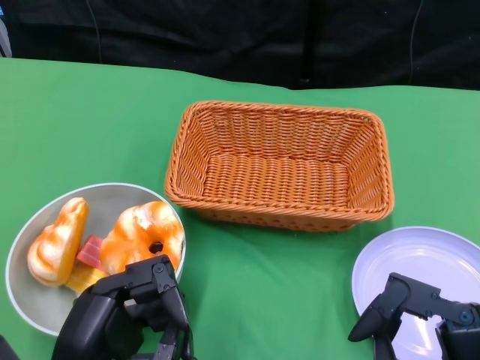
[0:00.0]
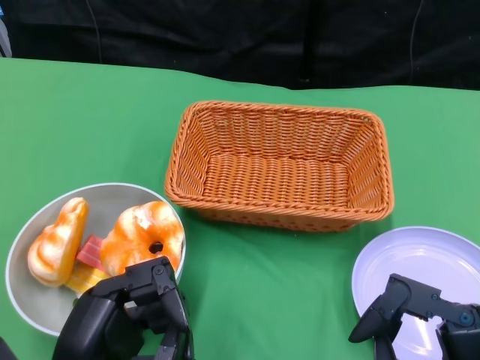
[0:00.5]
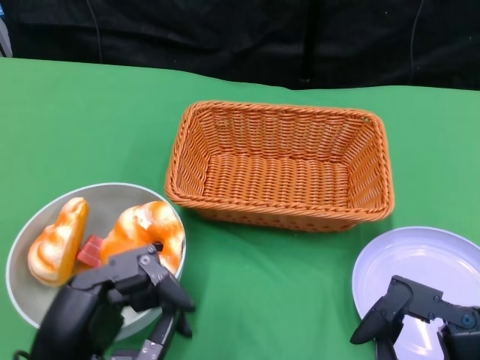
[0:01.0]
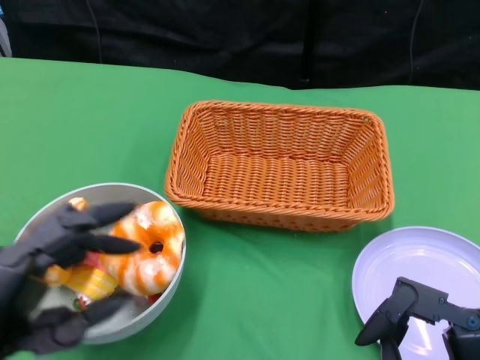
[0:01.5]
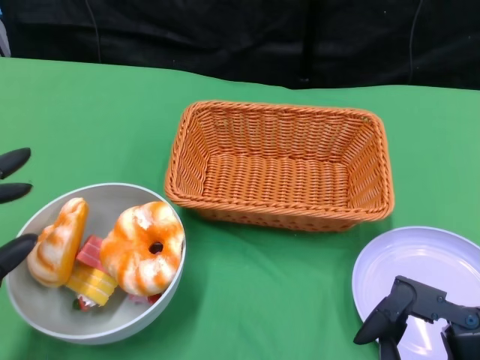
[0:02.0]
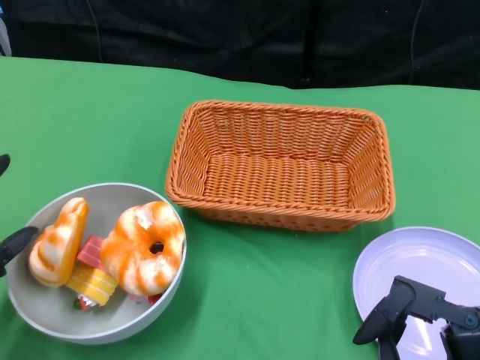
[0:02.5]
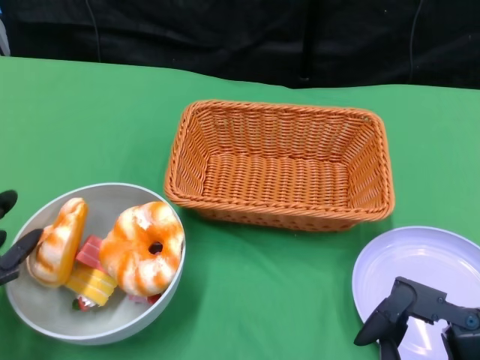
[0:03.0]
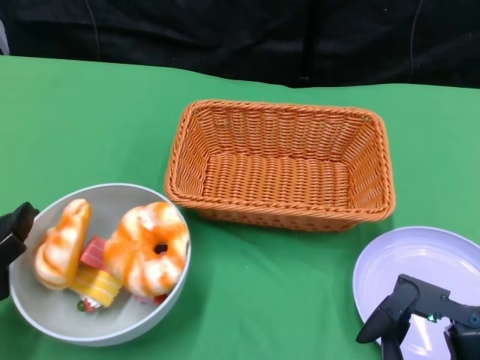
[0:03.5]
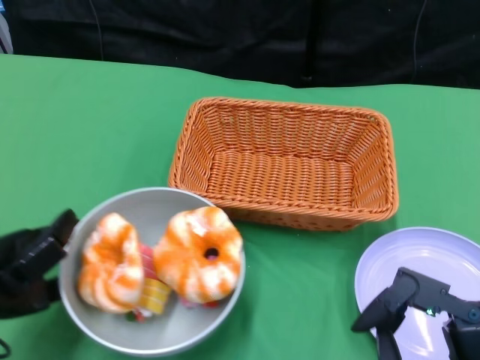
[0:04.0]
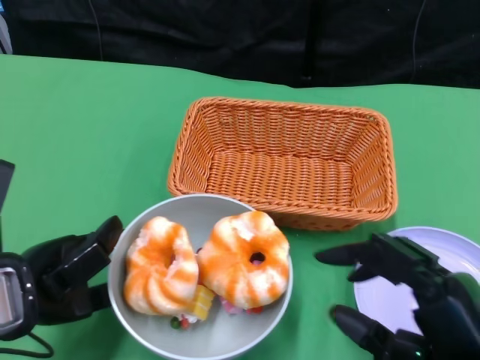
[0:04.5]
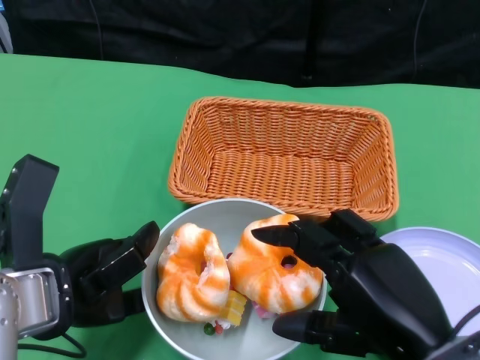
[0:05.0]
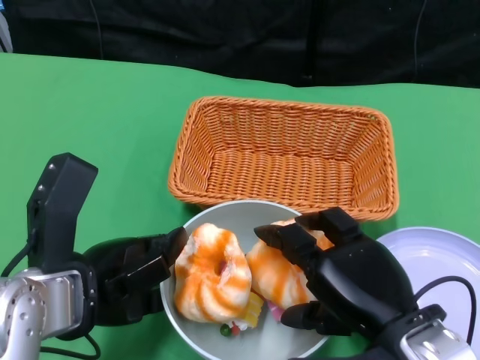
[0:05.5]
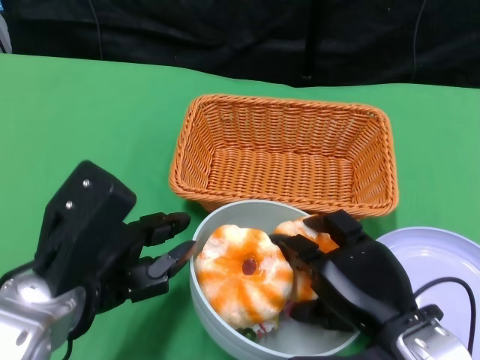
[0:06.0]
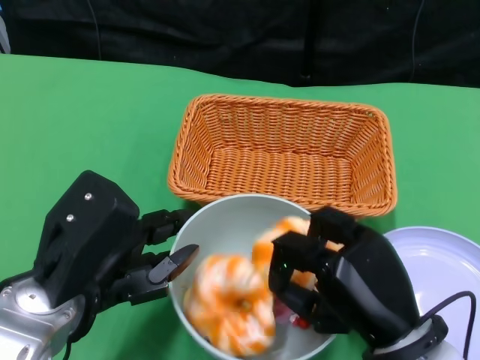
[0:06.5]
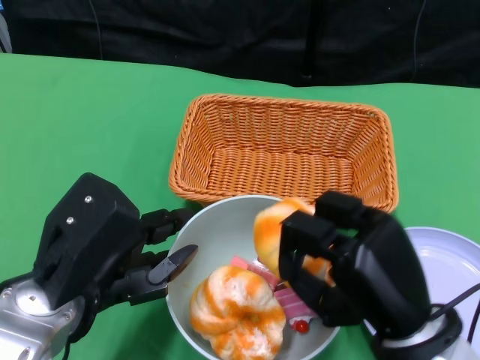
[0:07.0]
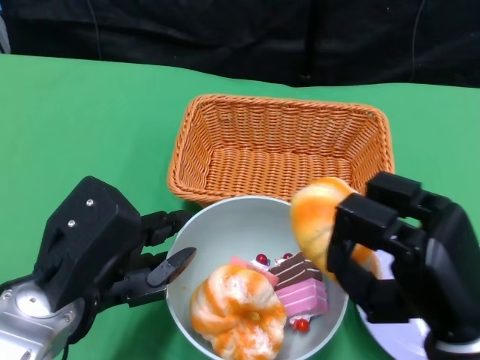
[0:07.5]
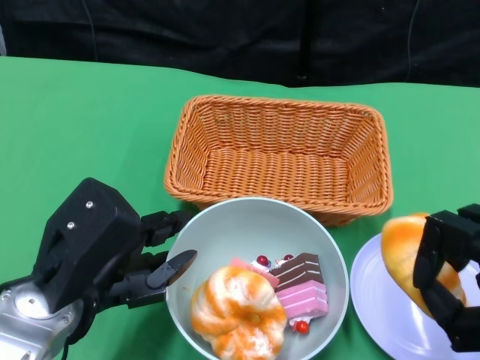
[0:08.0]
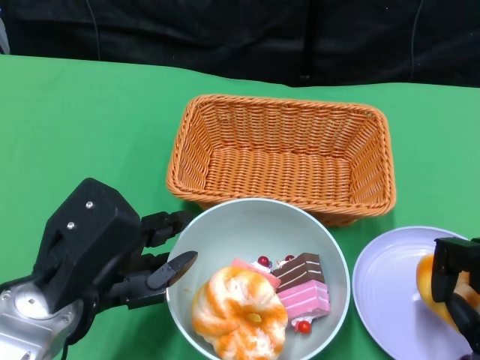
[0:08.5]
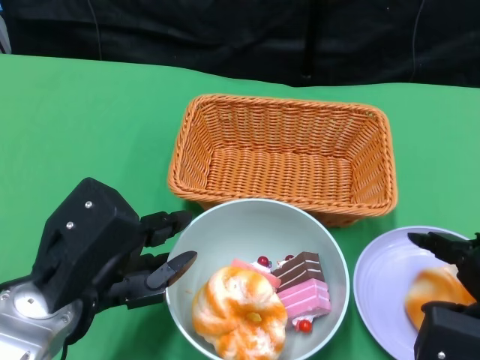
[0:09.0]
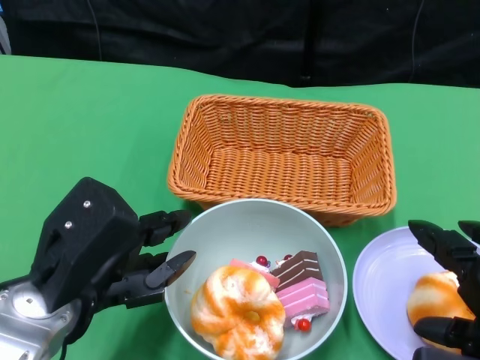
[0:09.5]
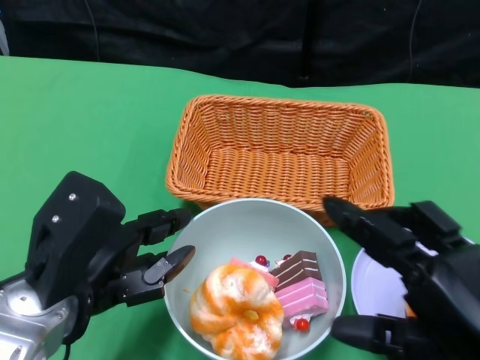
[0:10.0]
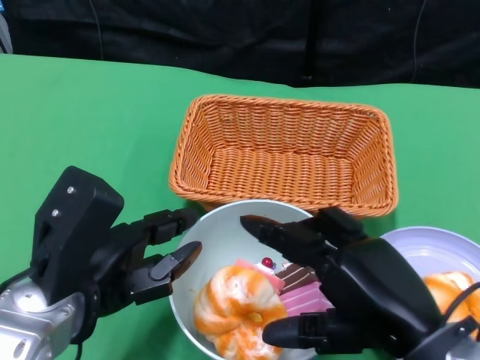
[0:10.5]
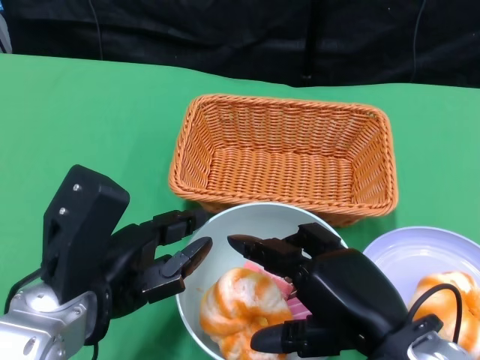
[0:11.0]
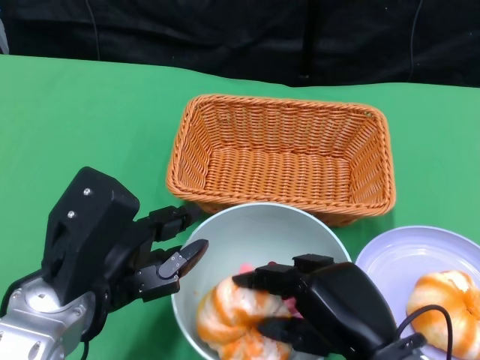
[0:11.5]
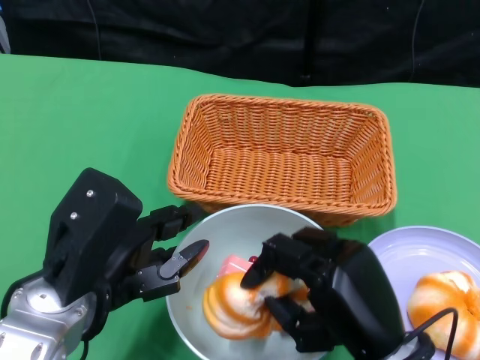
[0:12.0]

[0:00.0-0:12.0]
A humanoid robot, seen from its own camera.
Step, 0.0 to 4.5 s: Push the bowl to the center of the table using the left gripper.
2.0 to 4.0 s: The left hand shifts roughly 5 cm forward.
4.0 to 6.0 s: The right hand goes approximately 10 cm forward, while the left hand heads to the right, covering about 10 cm.
6.0 to 8.0 s: The right hand travels to the right and backward by some 10 cm.
8.0 to 10.0 s: The right hand changes place by about 5 cm.
10.0 to 12.0 s: The right hand shifts roughly 15 cm downward, to the left and forward.

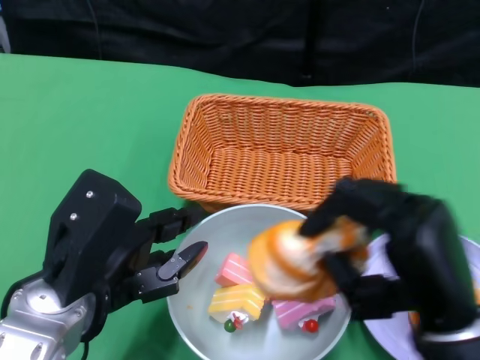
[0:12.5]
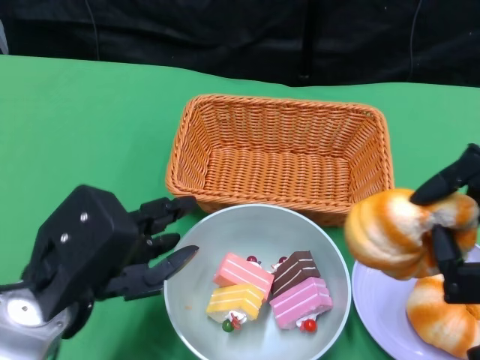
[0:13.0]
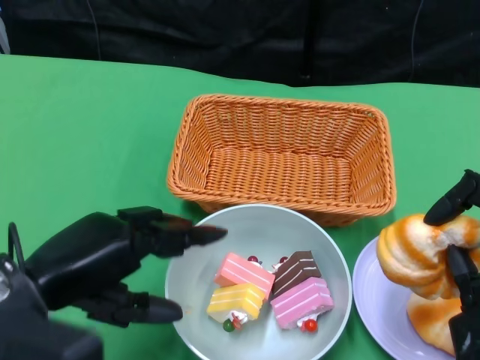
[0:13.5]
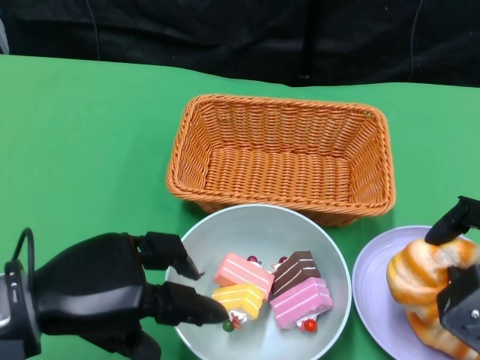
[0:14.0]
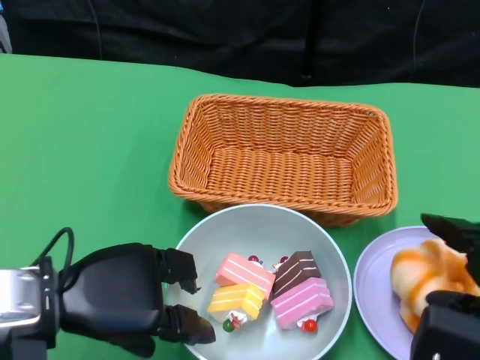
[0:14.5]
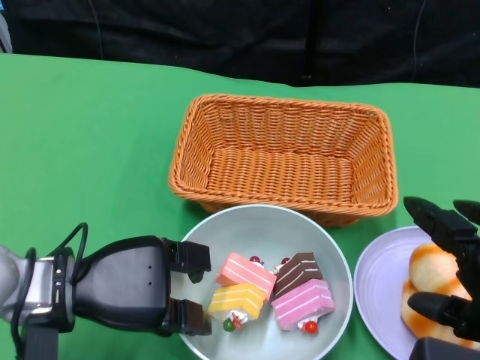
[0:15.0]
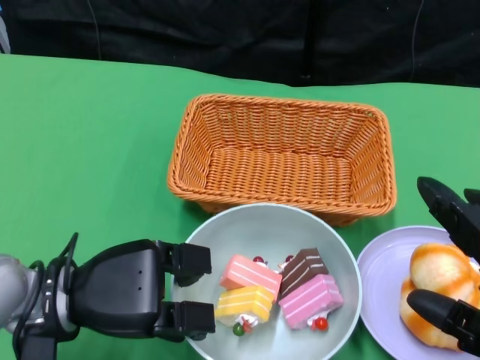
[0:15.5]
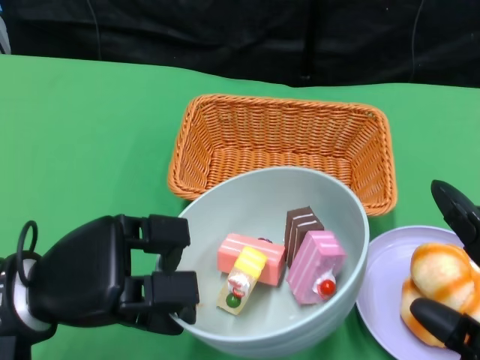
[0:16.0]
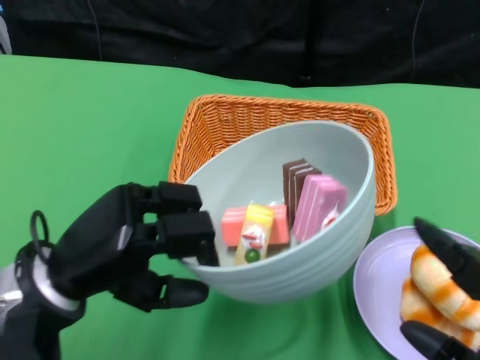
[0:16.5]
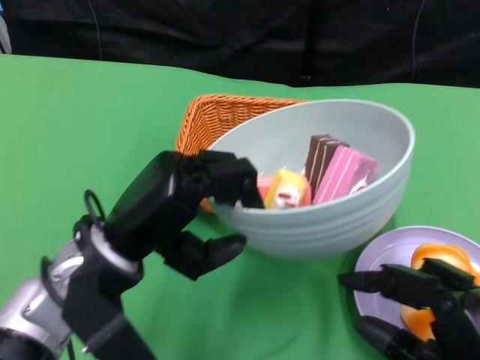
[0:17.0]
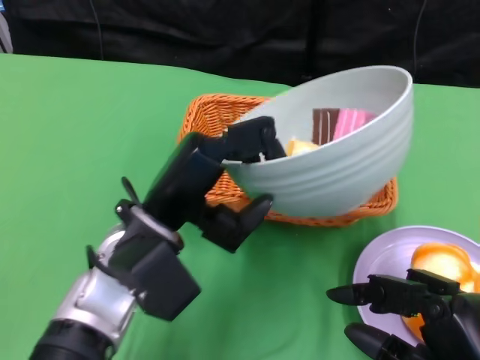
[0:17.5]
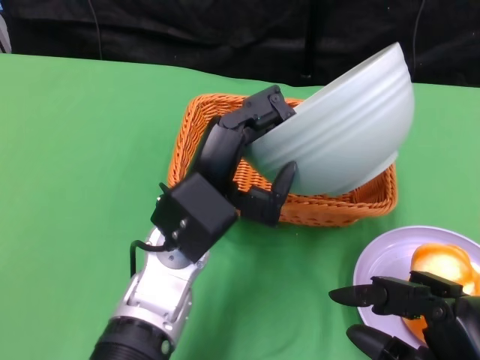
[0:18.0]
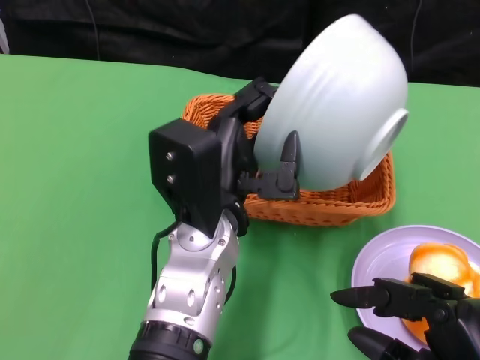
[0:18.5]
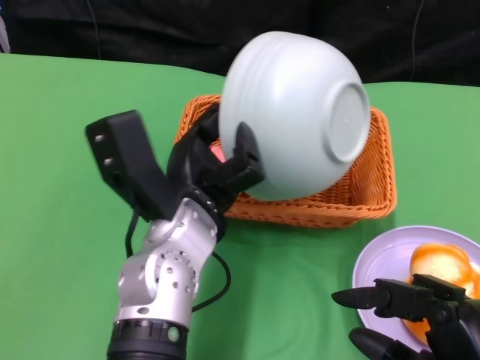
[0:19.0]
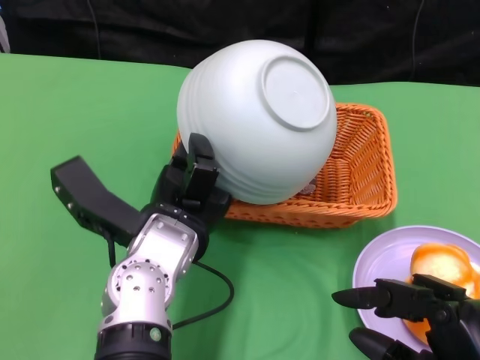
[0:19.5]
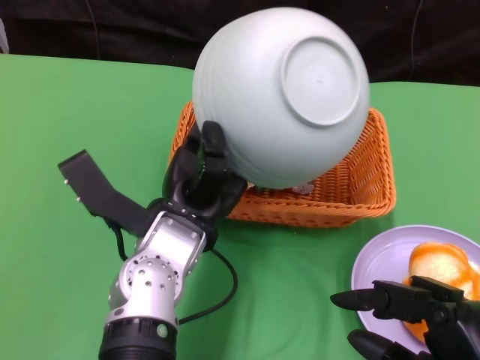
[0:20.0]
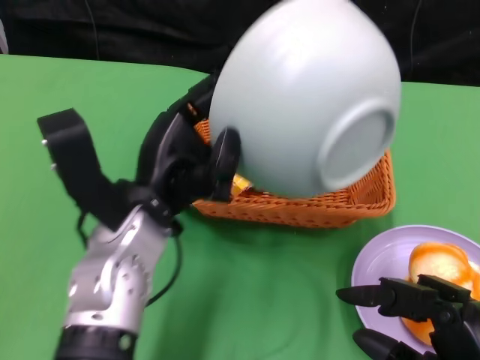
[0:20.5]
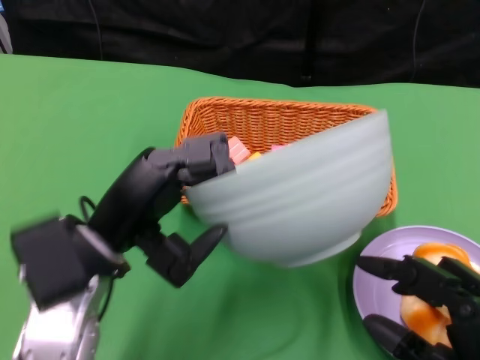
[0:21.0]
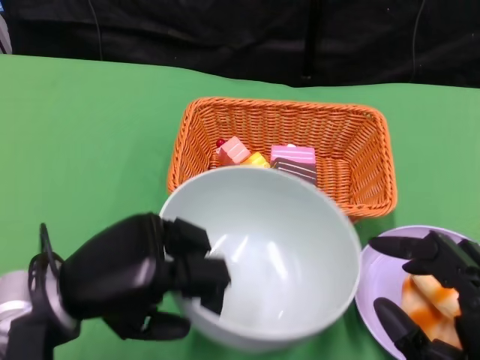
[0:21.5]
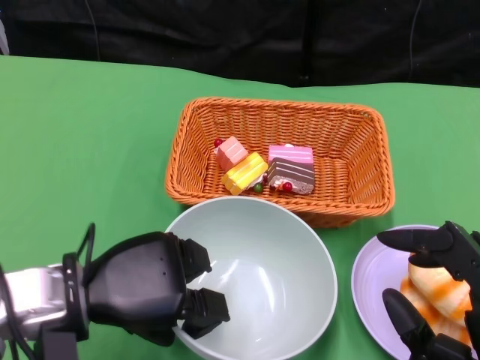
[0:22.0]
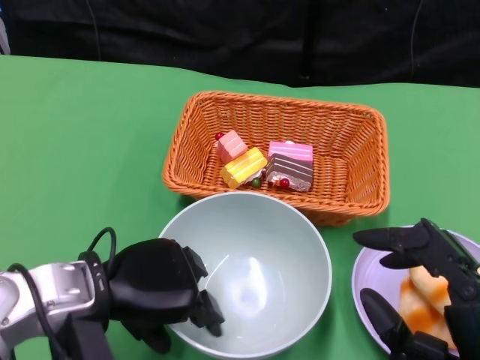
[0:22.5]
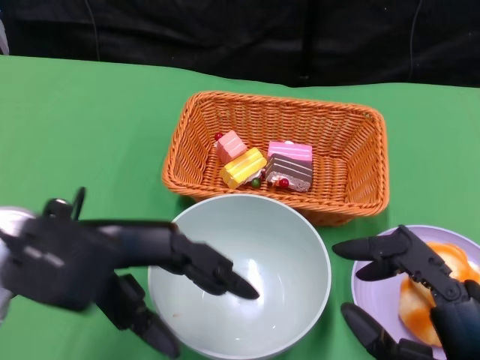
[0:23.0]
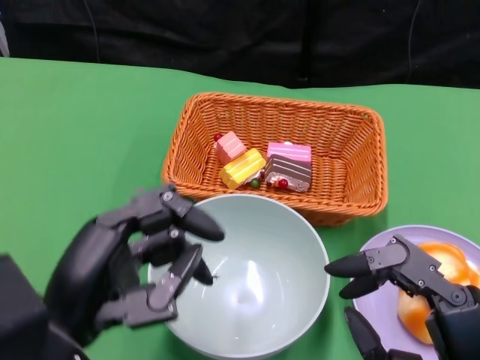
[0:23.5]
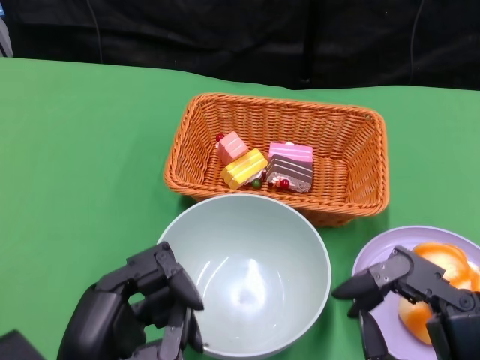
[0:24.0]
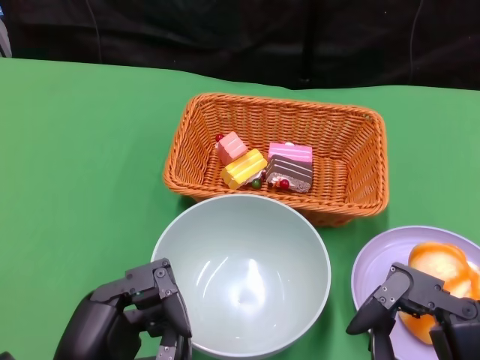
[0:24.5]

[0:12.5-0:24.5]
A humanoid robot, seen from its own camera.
Step, 14.5 to 15.0 s: Grasp the bowl with the left gripper.
Step, 15.5 to 20.0 s: Pour the cake into the basket with the left gripper.
Step, 20.5 to 22.5 s: Place the bowl on the table with the left gripper.
12.5 to 14.5 s: The right hand is displaced to the right by about 10 cm.
14.5 to 16.5 s: The right hand shifts approximately 10 cm backward.
16.5 to 18.5 s: The left hand travels to the right by roughly 15 cm.
18.5 to 20.5 s: The left hand shifts about 5 cm to the left.
20.5 to 22.5 s: The left hand shifts some 5 cm to the left.
22.5 to 24.5 s: The left hand heads backward, covering approximately 10 cm.

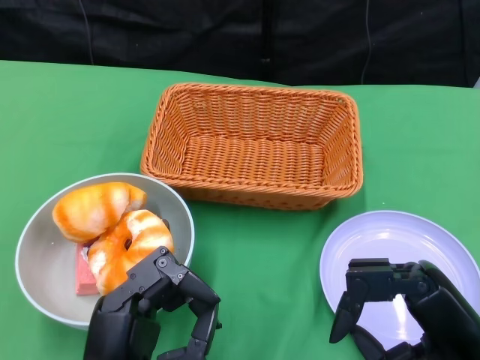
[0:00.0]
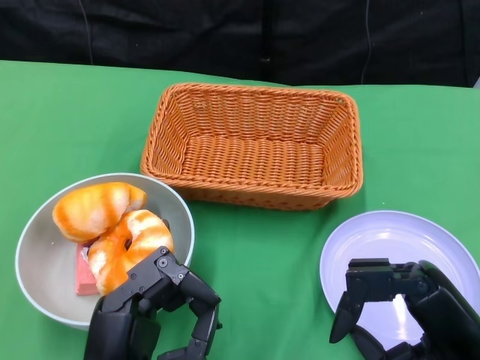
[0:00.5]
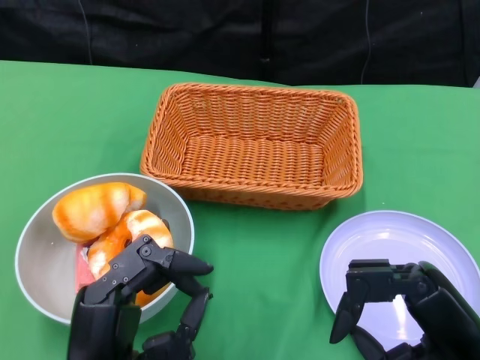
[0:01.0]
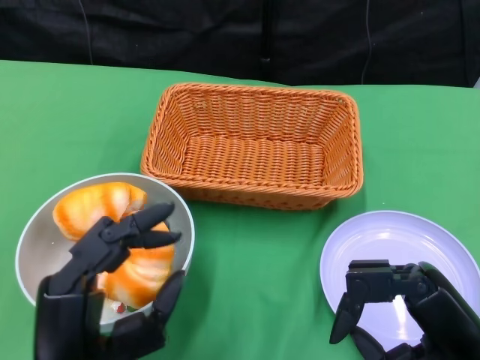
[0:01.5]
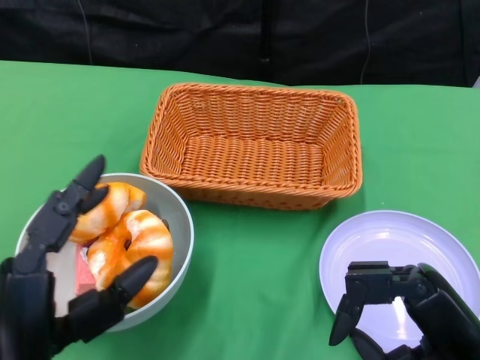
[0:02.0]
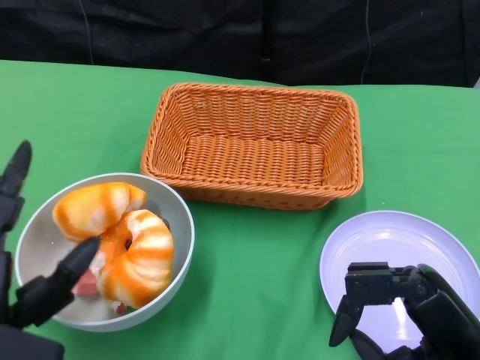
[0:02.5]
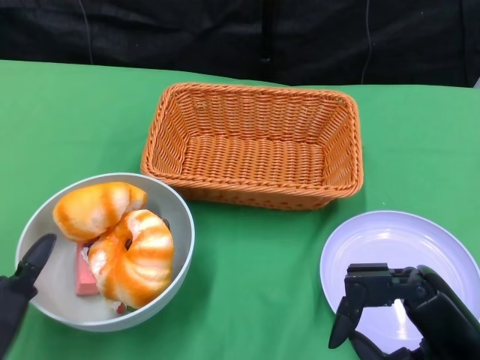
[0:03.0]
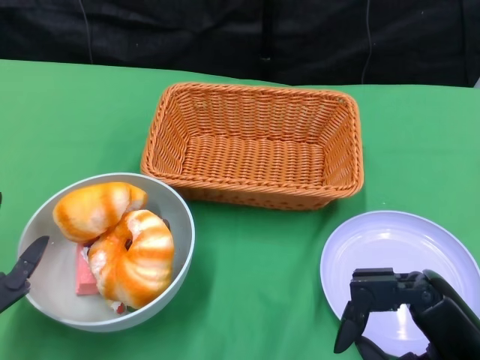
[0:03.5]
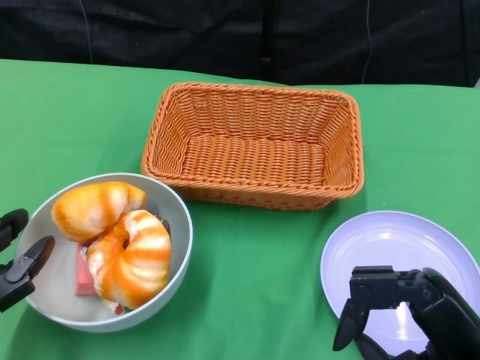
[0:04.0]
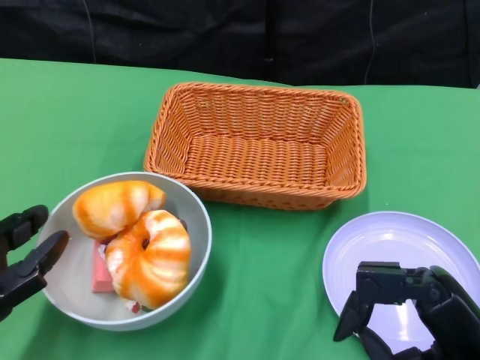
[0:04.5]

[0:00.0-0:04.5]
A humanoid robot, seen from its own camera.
2.0 to 4.5 s: The left hand goes about 10 cm to the left and forward.
